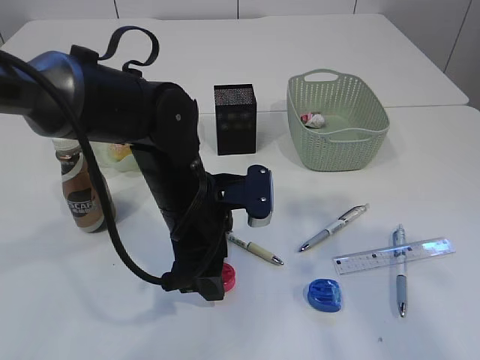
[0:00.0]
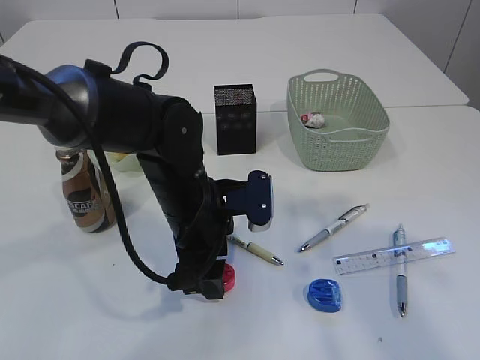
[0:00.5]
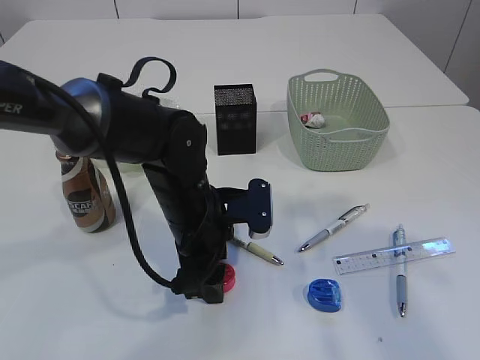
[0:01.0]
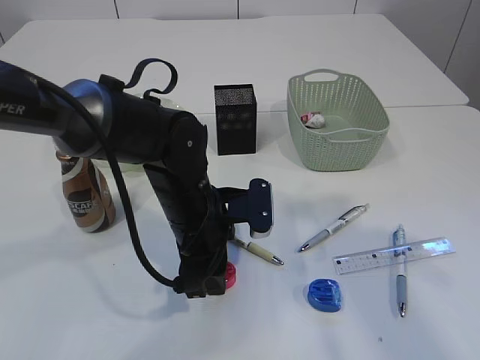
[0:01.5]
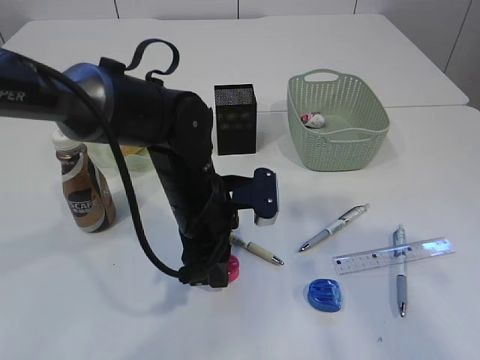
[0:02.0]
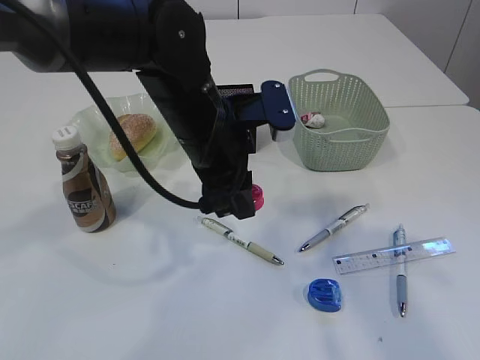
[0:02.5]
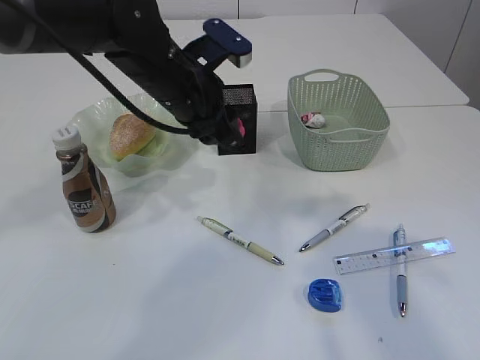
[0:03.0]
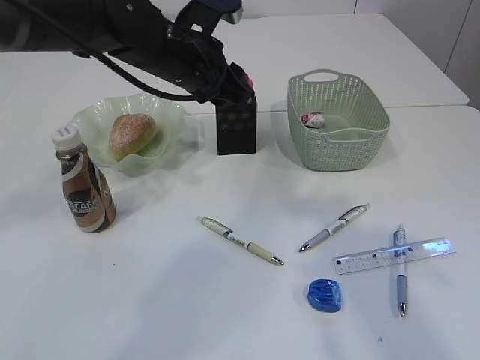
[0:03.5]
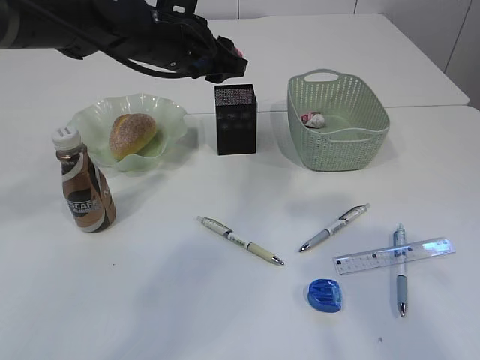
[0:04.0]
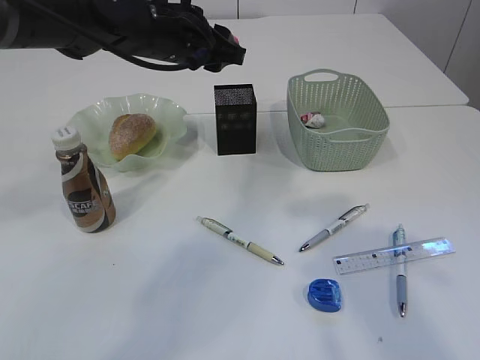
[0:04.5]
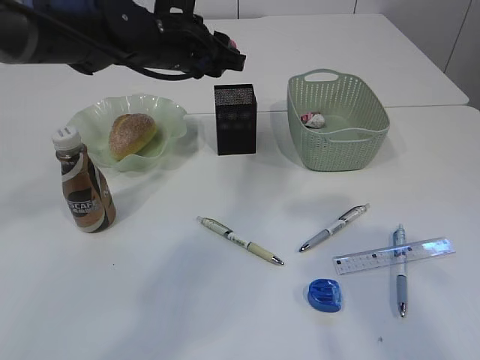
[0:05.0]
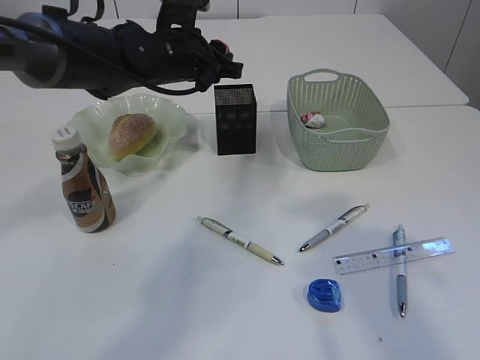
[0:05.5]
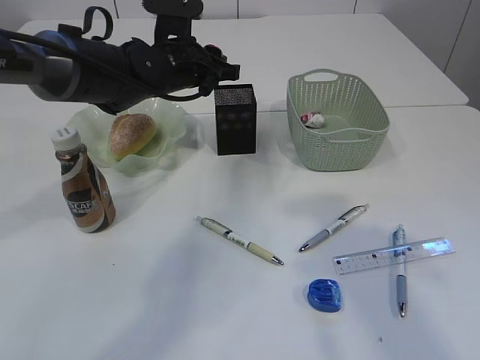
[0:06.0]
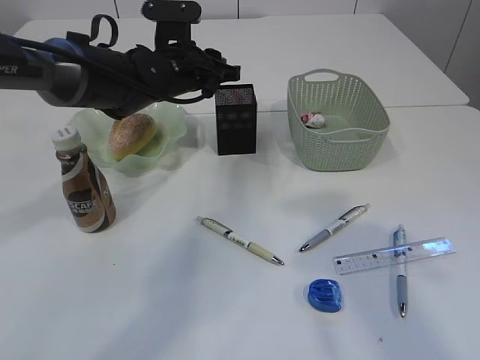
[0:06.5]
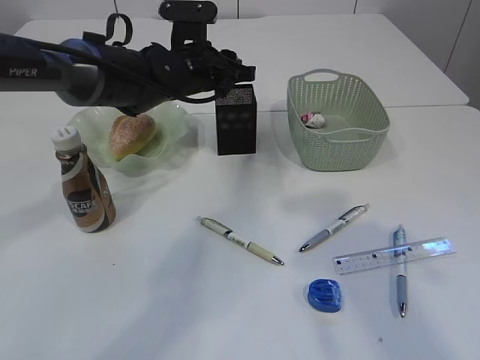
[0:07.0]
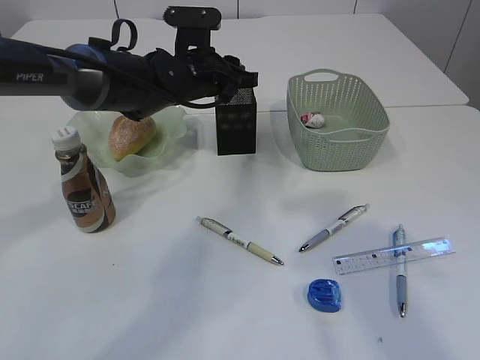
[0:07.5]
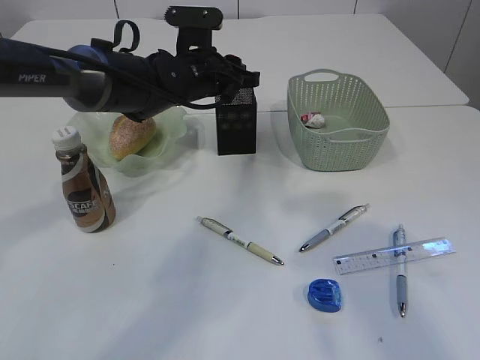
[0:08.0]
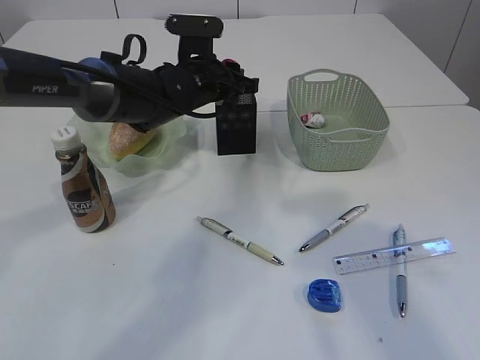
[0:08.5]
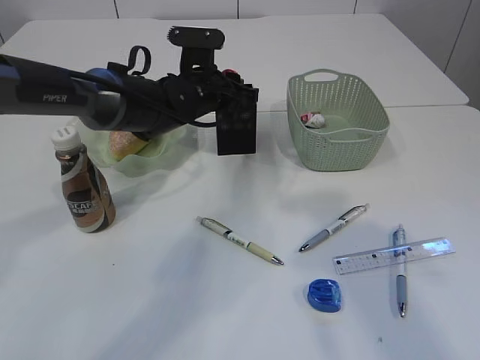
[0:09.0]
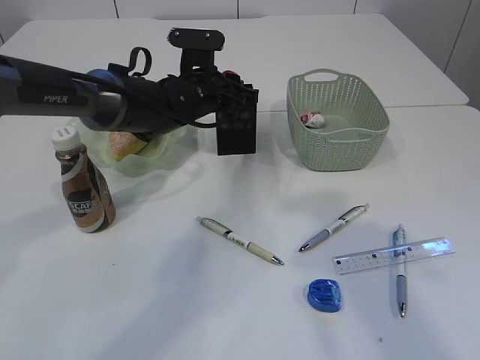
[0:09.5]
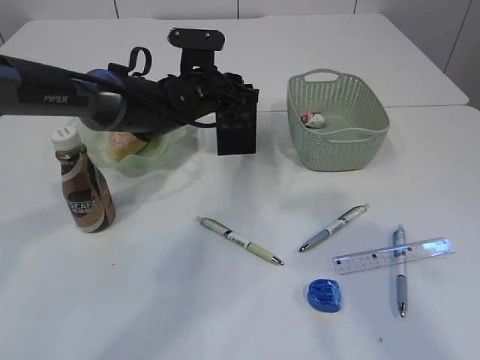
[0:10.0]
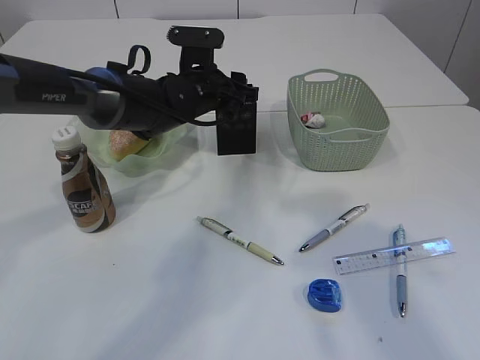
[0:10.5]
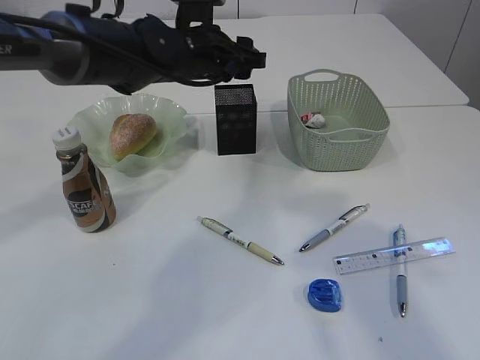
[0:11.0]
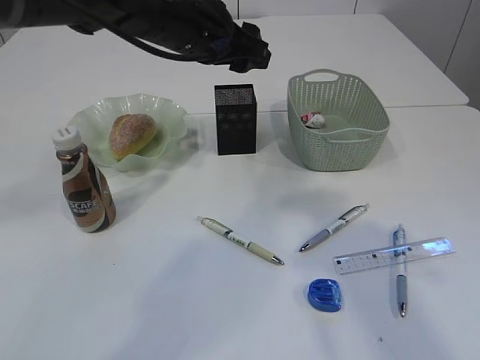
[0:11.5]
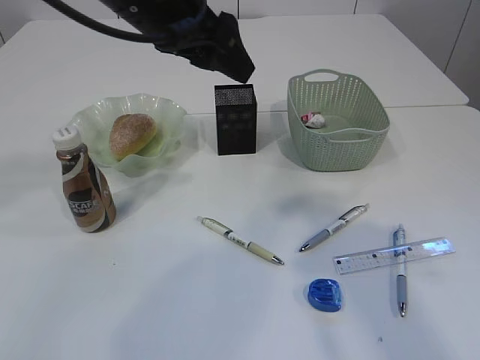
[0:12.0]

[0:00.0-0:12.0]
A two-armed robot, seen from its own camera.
Step, 0:00.0 to 0:02.5: Pick up the red pencil sharpener.
Step, 0:03.0 to 0:11.0: Place the red pencil sharpener into the pen holder.
0:00.0 to 0:02.0: The left gripper closes its fingers.
0:02.0 to 0:04.0: The left gripper goes some 15 cm upward and forward.
0:04.0 to 0:06.0: The left gripper goes approximately 5 cm downward.
0:06.0 to 0:10.0: The grippers stay close to where they were, moving slightly.
0:10.0 to 0:12.0: The left gripper shifts some 20 cm upward and backward.

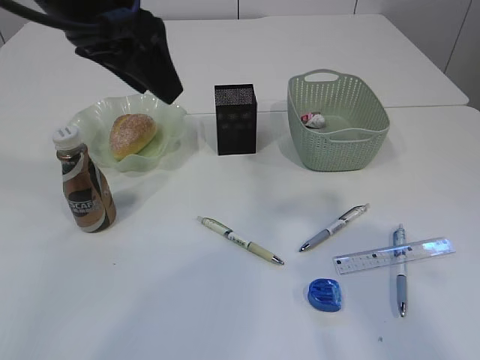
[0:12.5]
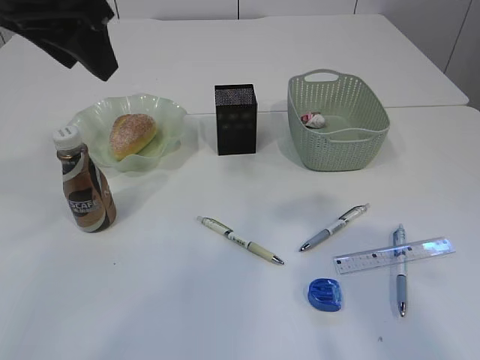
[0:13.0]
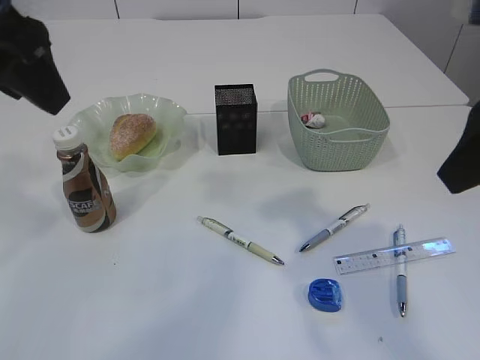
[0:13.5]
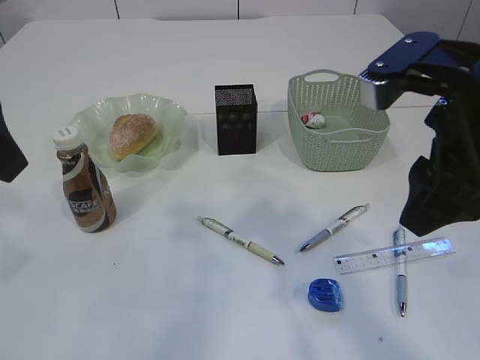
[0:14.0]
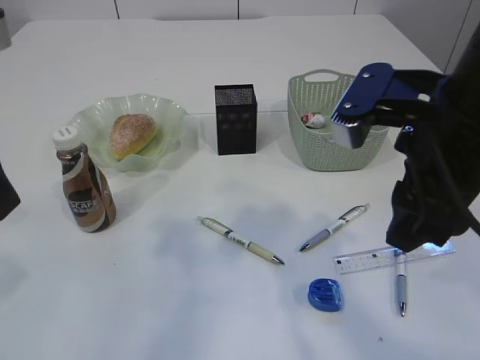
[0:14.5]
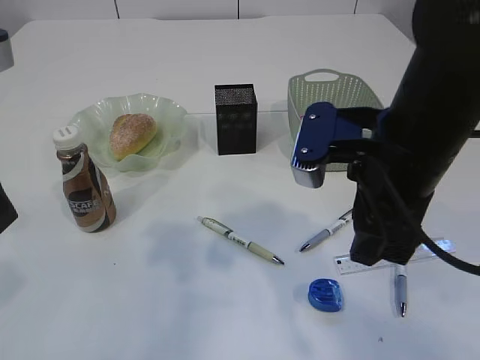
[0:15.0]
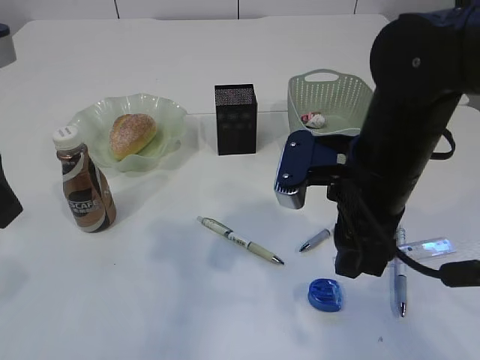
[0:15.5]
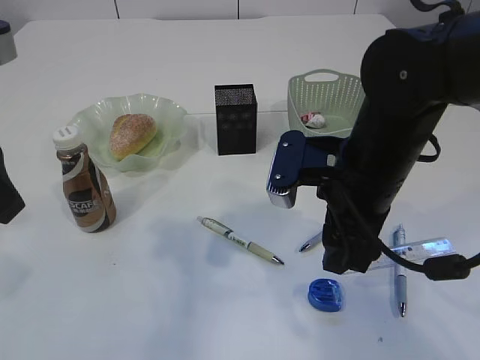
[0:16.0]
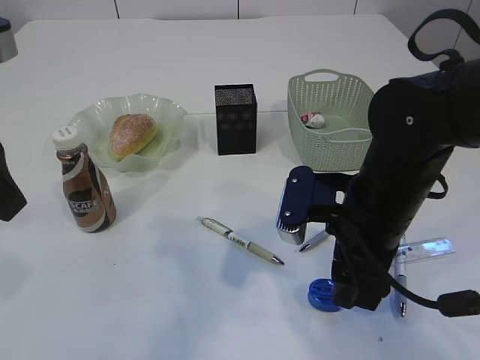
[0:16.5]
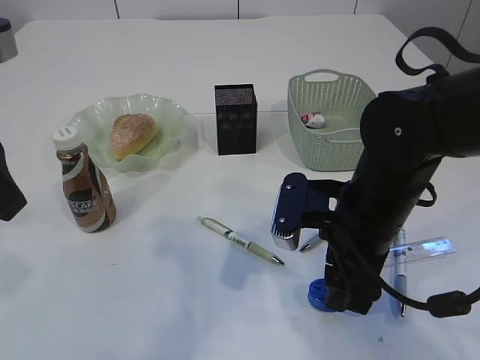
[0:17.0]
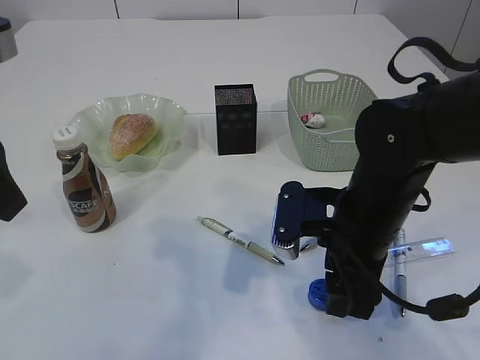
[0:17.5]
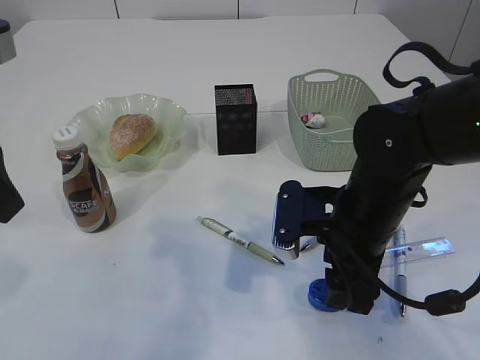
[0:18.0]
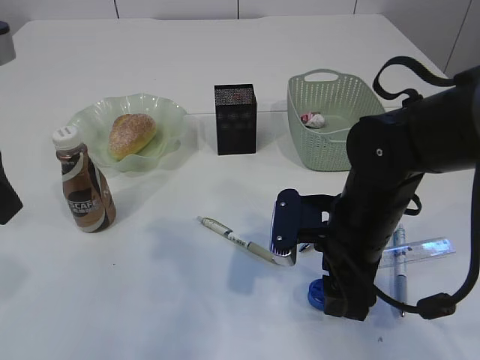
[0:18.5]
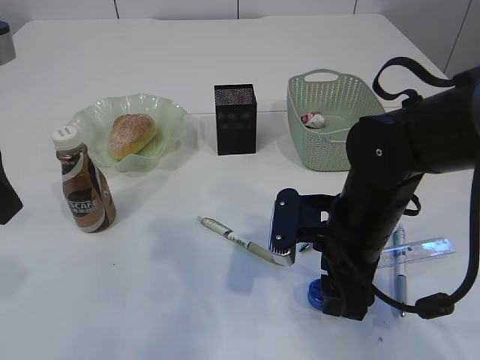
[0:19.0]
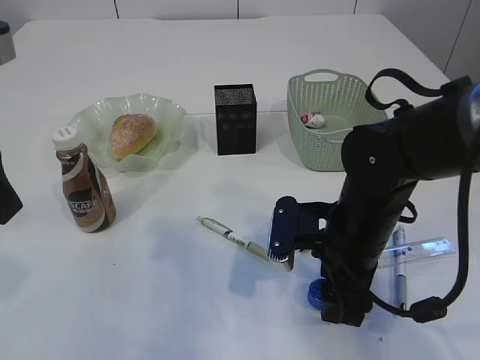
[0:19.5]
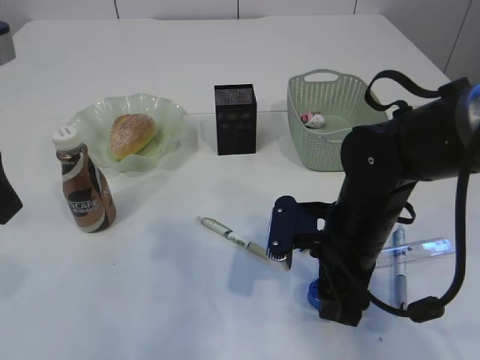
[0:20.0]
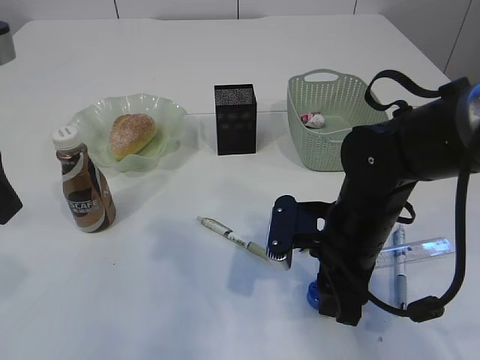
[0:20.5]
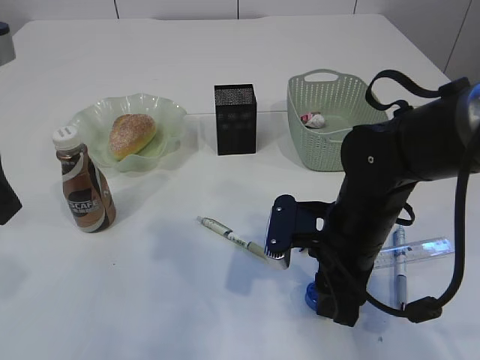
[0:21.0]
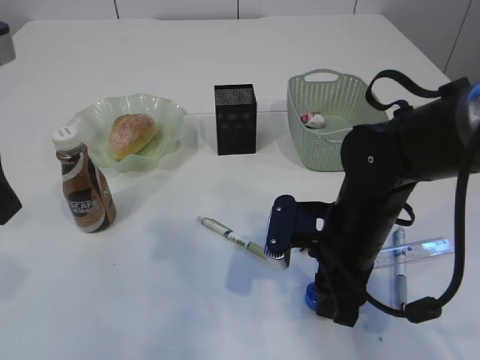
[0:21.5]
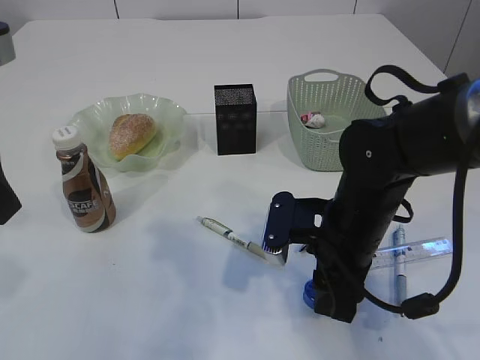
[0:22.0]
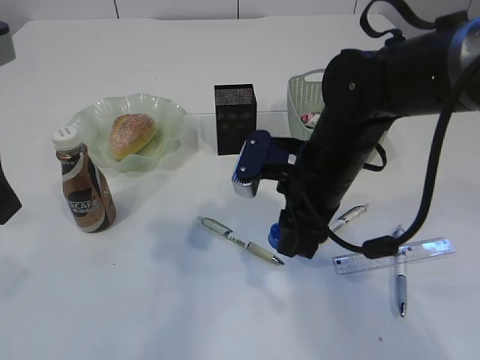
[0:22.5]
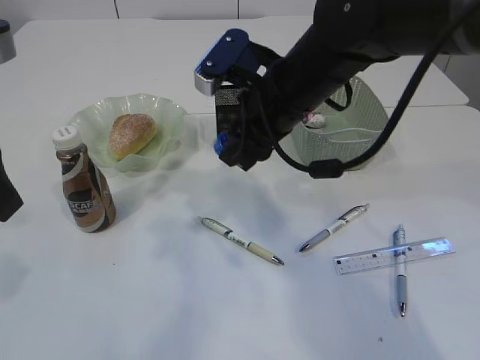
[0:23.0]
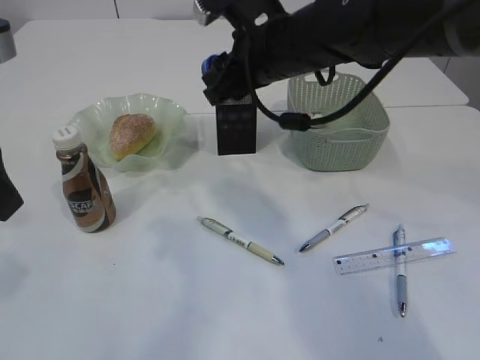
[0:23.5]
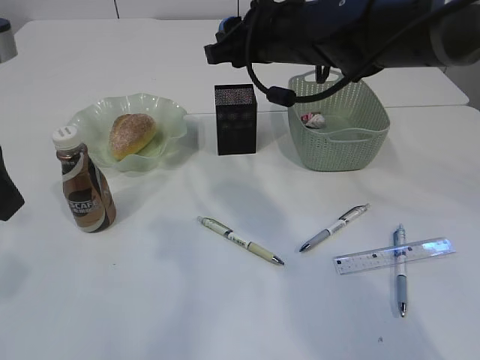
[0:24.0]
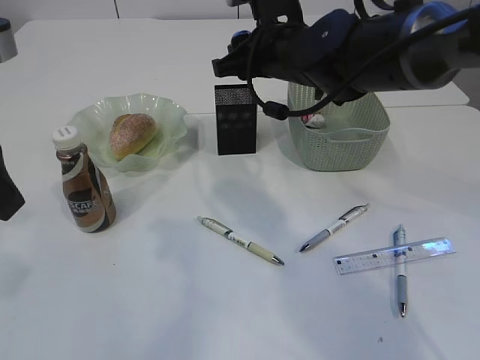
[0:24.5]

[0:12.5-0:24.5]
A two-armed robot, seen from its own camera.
Step, 0:12.5 to 0:23.0: Pick up the blue pencil sharpener.
0:12.5 to 0:14.5: The left gripper goes approximately 15 cm backward and to the left. Meanwhile the right gripper heads downward, to the left and forward, covering about 15 cm.
0:14.5 to 0:16.5: The right gripper shifts about 10 cm downward.
0:16.5 to 0:20.5: There are only small adjustments of the grippers.
0:20.5 to 0:22.5: The right gripper heads upward, covering roughly 5 cm.
0:22.5 to 0:24.5: The right gripper travels forward and upward by roughly 15 cm.

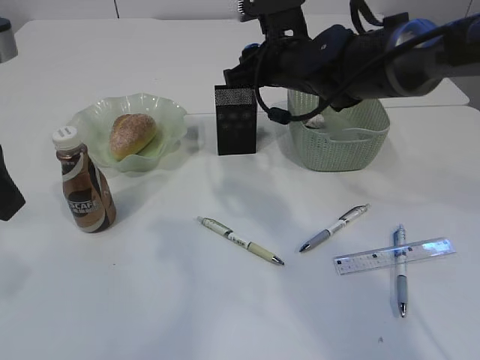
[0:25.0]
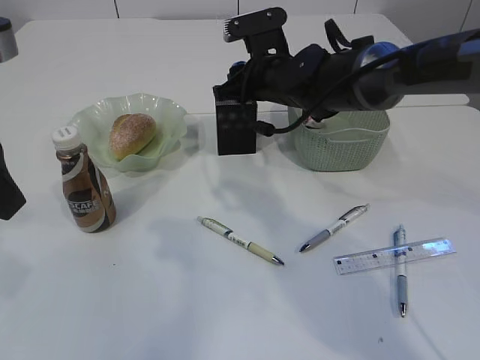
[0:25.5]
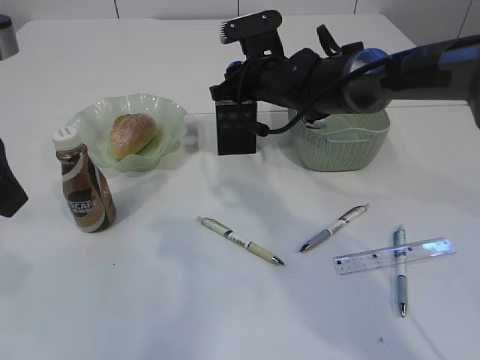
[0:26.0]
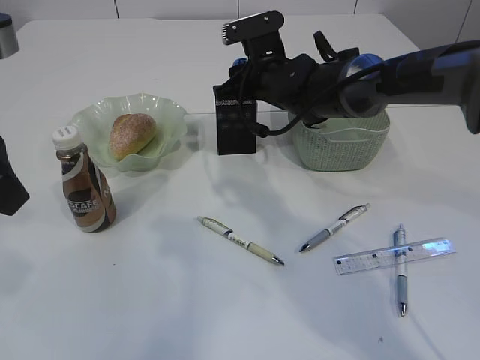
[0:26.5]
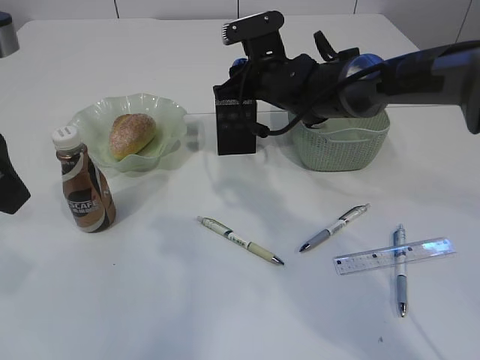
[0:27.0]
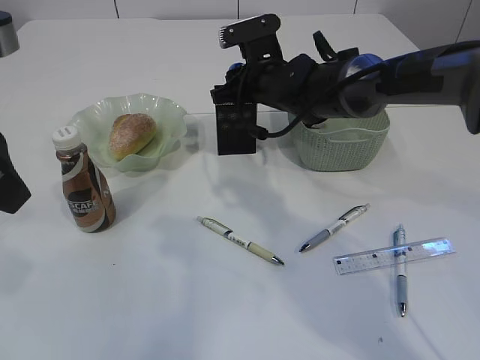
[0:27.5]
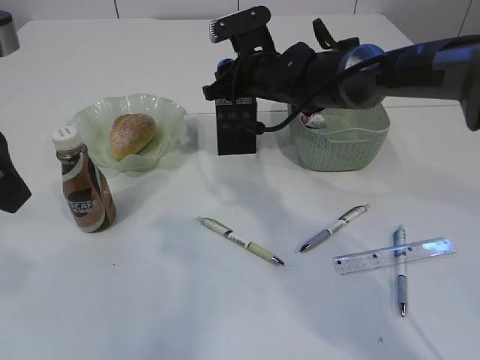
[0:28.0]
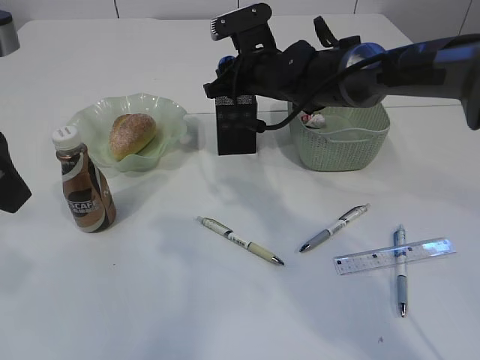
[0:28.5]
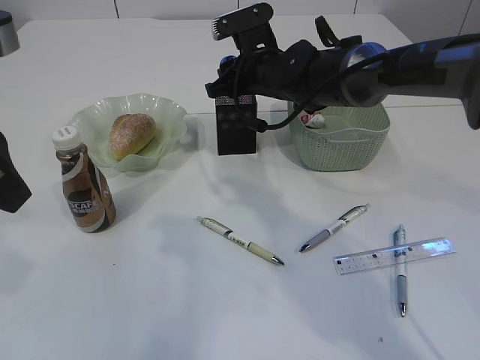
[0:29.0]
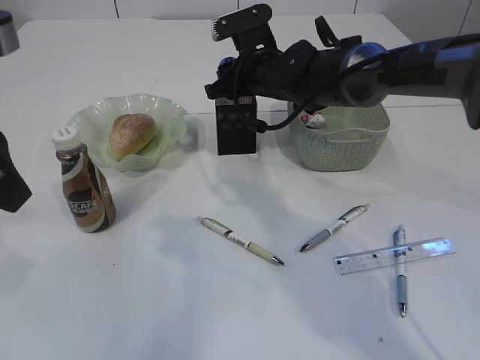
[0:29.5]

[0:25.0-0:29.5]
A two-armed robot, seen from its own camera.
0:25.0 to 0:27.0: The right gripper changes place by about 5 cm.
0:27.0 to 0:29.5: The grippers stay close to where they were, moving slightly.
